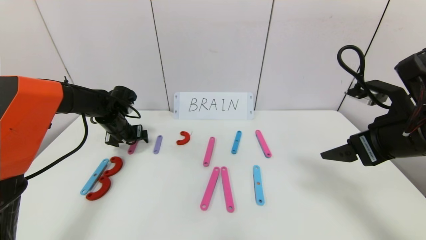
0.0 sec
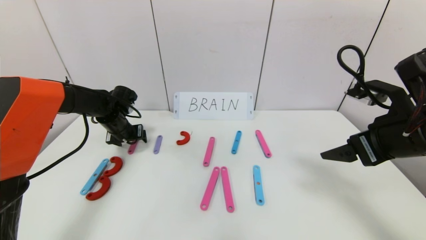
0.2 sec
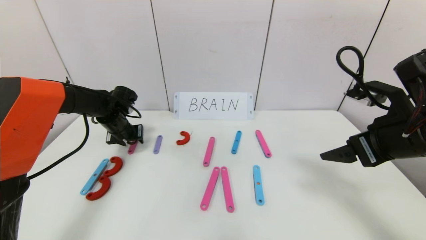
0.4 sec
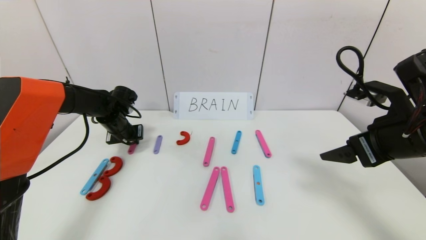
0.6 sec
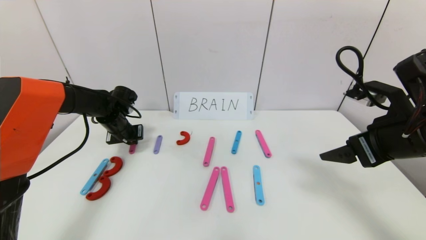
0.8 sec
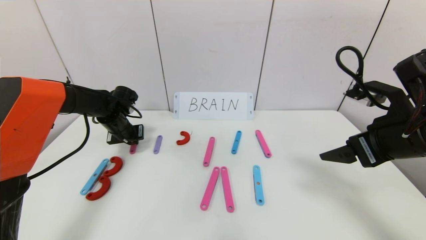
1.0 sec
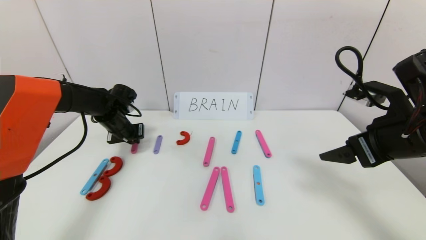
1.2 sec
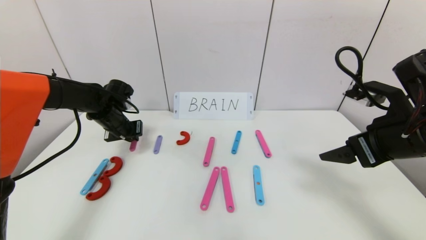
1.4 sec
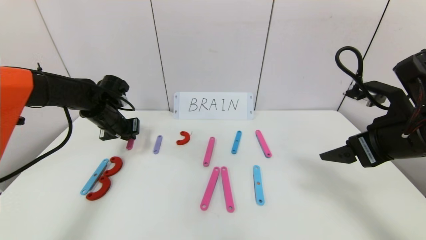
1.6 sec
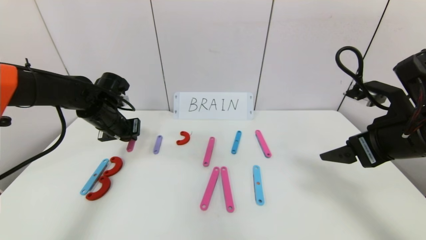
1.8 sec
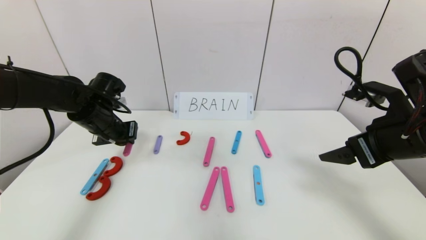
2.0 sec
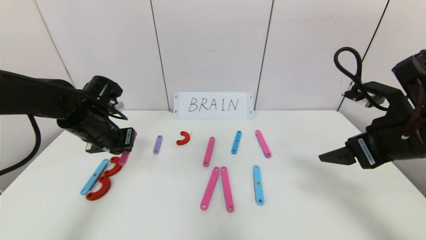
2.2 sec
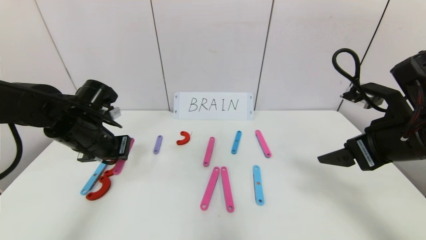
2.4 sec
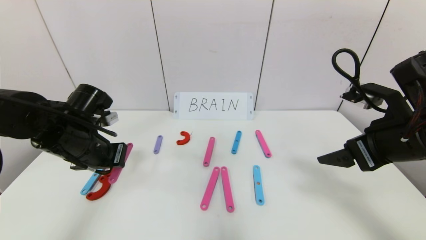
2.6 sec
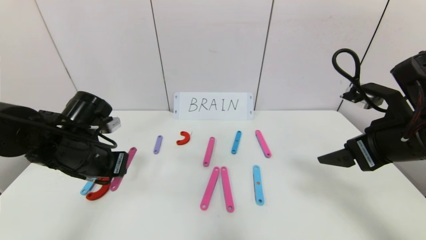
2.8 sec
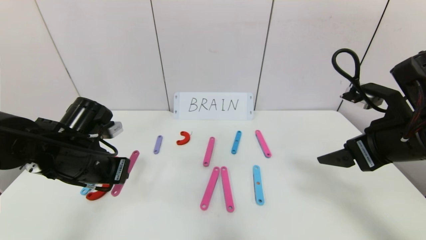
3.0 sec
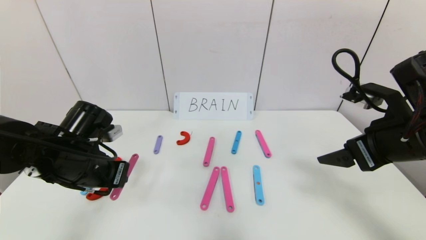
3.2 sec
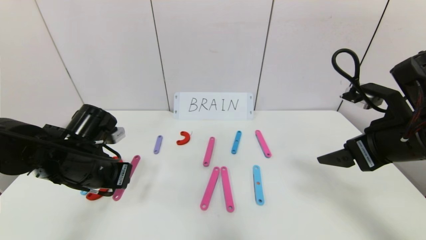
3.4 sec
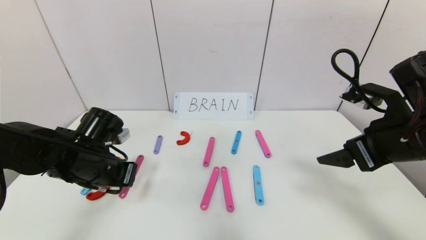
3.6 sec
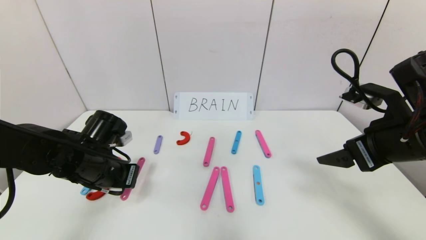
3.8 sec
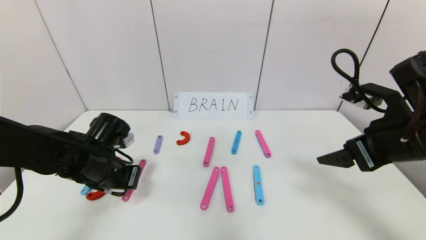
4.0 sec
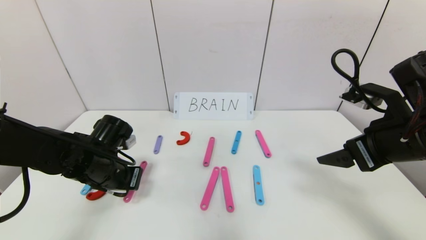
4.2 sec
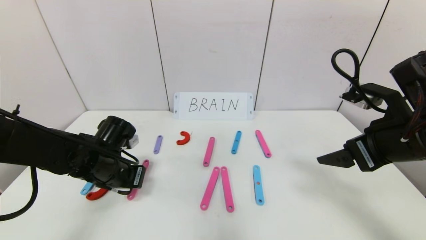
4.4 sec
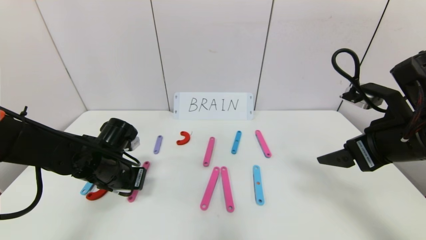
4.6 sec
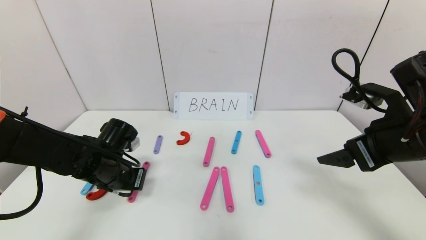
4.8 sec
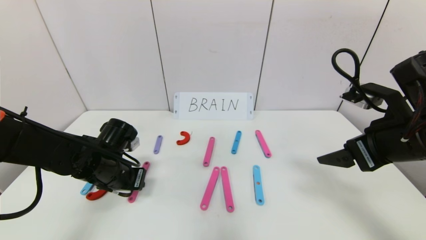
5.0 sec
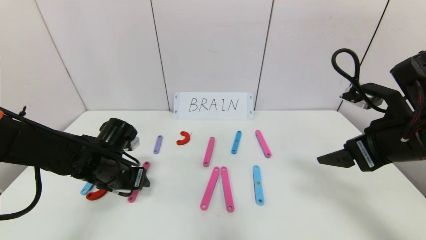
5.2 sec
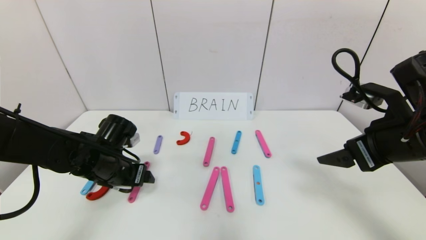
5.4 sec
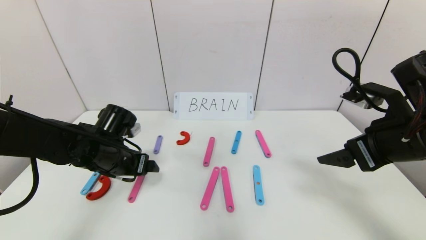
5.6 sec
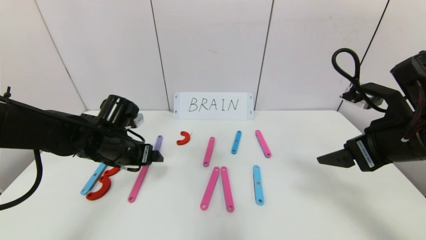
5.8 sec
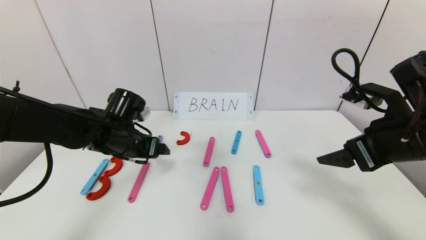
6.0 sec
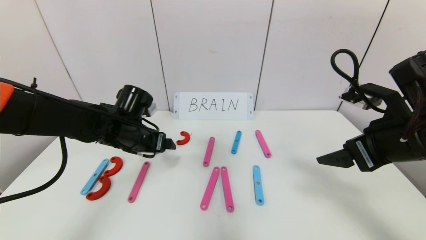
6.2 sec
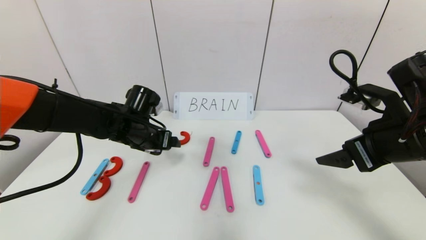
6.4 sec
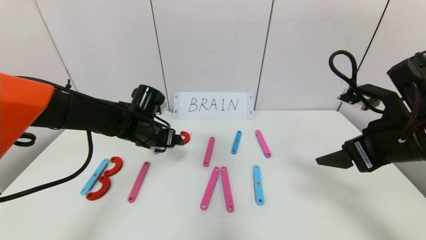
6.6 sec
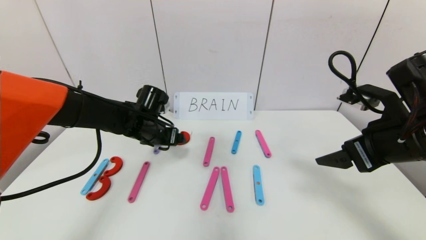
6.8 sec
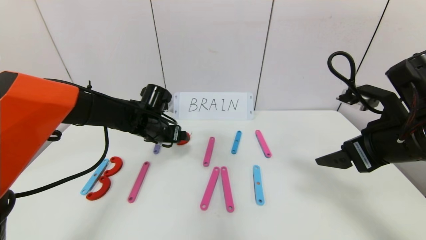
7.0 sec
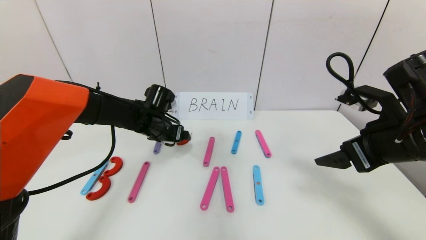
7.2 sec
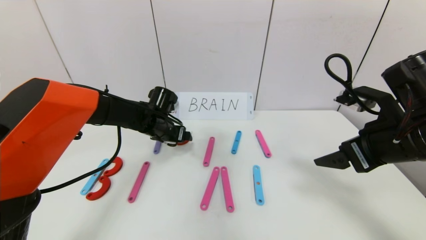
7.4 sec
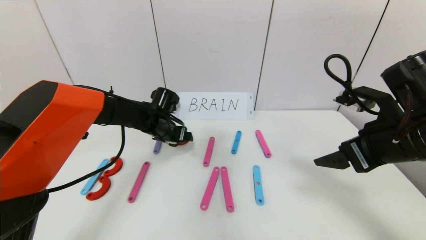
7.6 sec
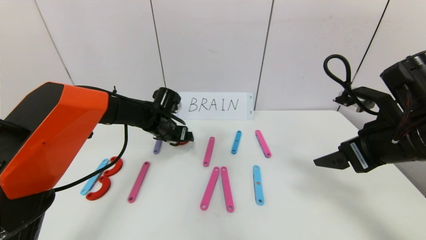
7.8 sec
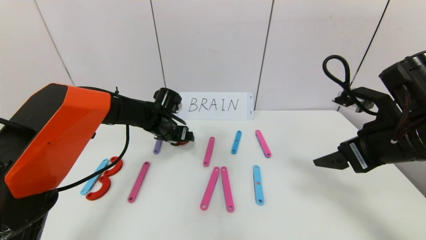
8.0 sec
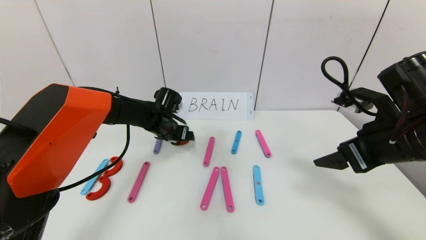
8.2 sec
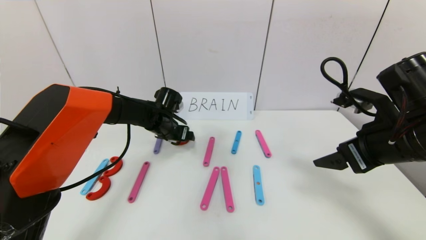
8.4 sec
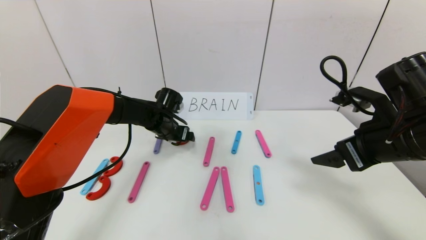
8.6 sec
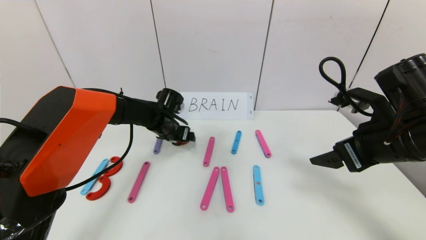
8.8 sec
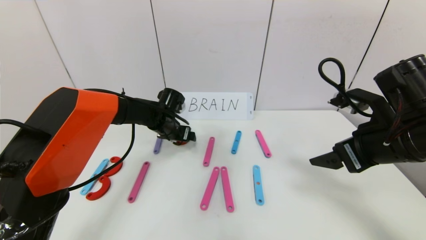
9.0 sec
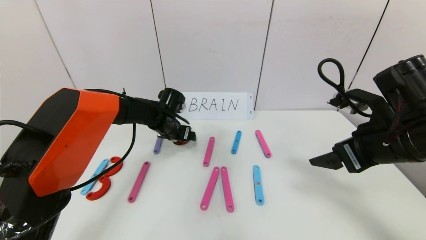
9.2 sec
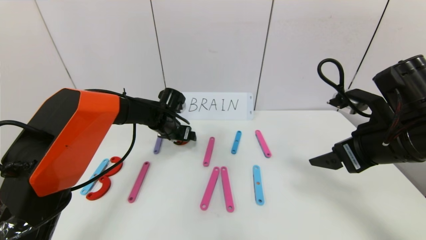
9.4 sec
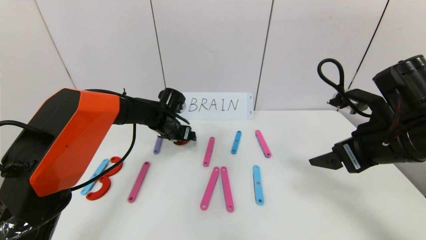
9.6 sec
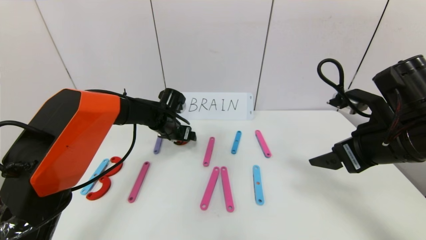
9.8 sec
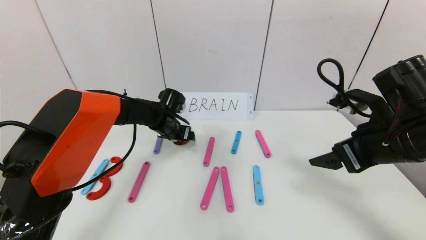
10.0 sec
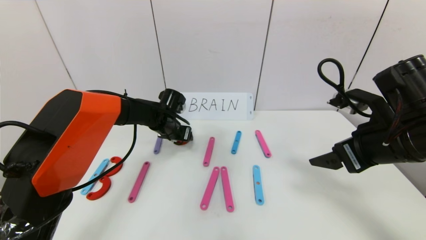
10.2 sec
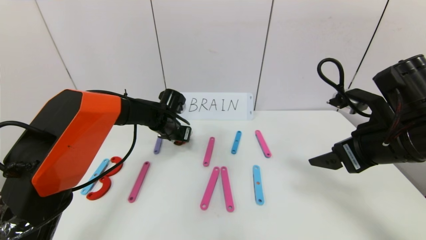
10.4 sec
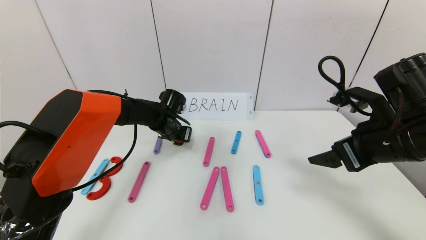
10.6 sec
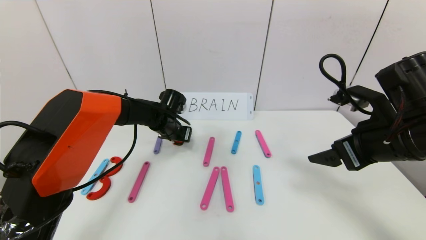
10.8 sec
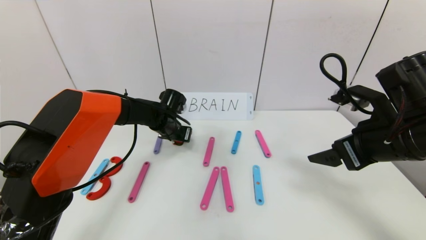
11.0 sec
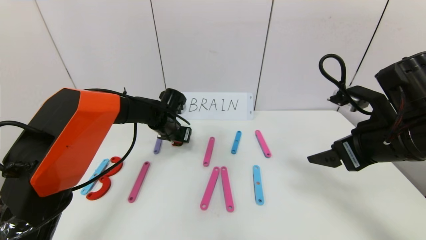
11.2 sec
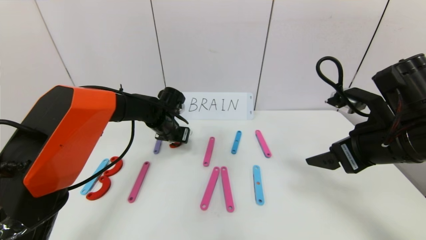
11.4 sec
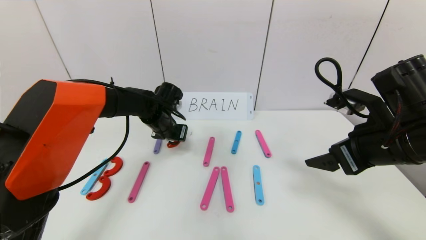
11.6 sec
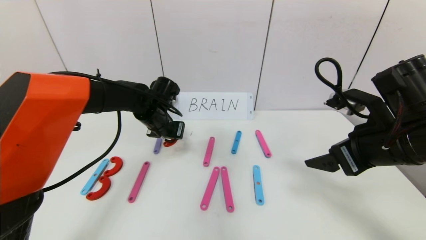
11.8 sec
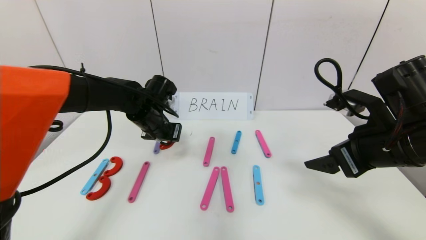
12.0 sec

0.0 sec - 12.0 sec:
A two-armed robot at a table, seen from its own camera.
Task of the whole recording: rearrange the word baai as brain.
0.0 sec - 1.6 sec: The left gripper ends up about 5 cm from where it was, and closes its fingers.
1.6 sec - 3.0 sec: The left gripper goes about 15 cm backward.
3.0 sec - 4.4 sec: The left gripper moves downward, some 5 cm.
4.4 sec - 6.0 sec: The left gripper changes place by approximately 5 cm, and opens its fingers.
6.0 sec - 7.6 sec: The left gripper shifts some 10 cm forward and to the right.
7.6 sec - 9.0 sec: There are only small adjustments of the grippers.
9.0 sec - 10.4 sec: The left gripper closes up.
10.4 sec - 12.0 sec: The left gripper shifts approximately 10 cm upward and backward.

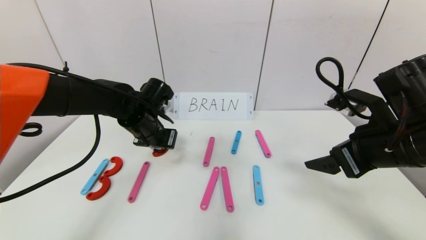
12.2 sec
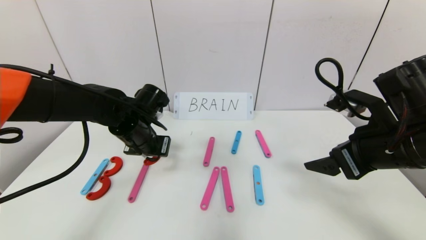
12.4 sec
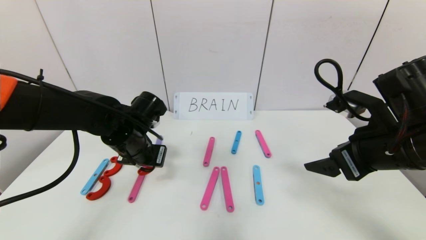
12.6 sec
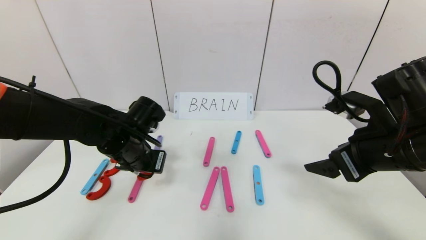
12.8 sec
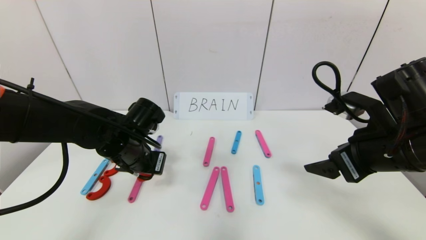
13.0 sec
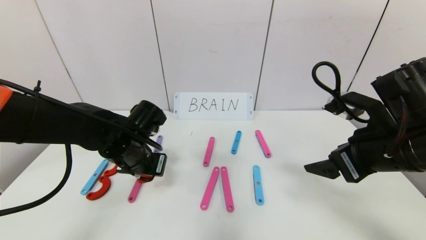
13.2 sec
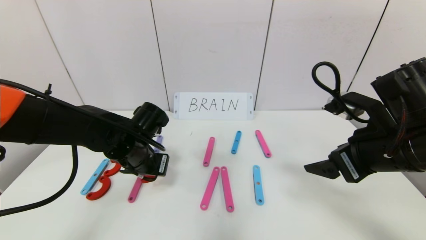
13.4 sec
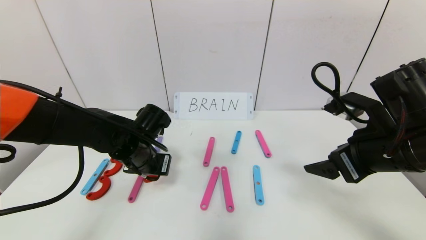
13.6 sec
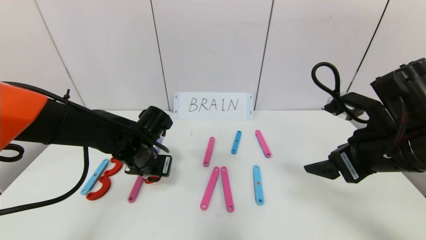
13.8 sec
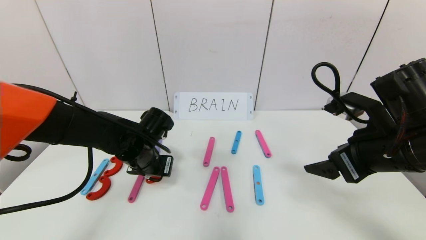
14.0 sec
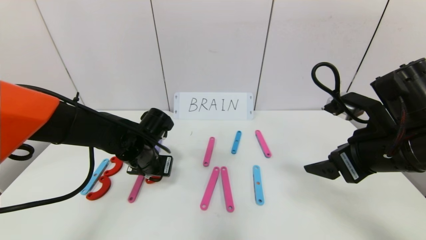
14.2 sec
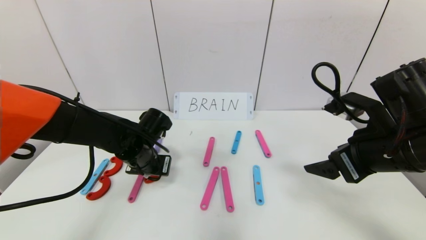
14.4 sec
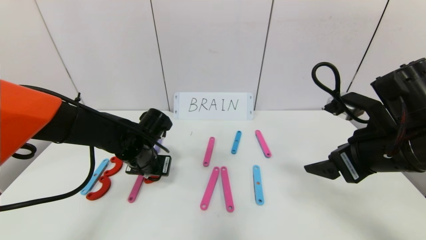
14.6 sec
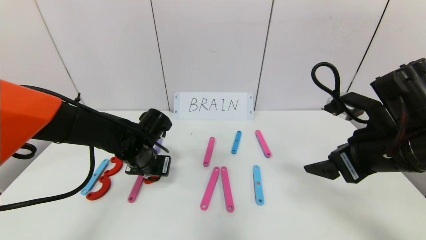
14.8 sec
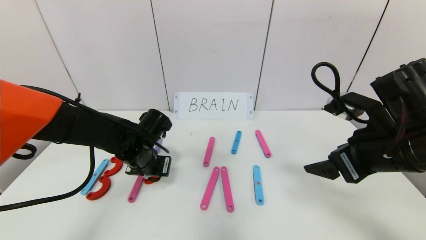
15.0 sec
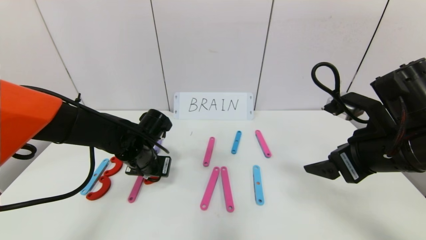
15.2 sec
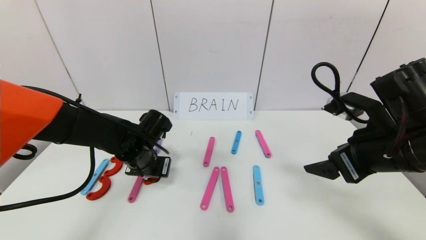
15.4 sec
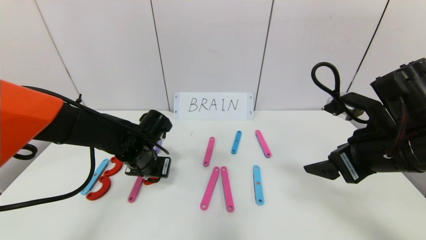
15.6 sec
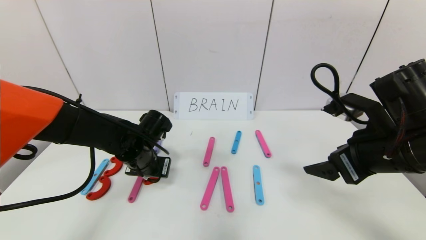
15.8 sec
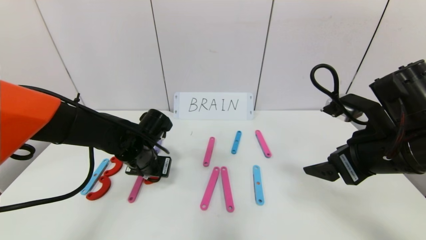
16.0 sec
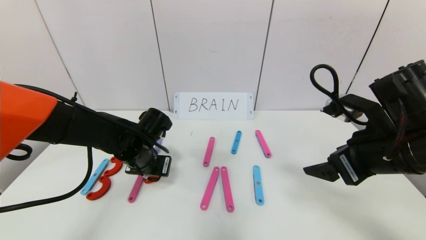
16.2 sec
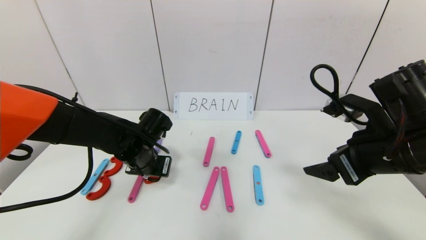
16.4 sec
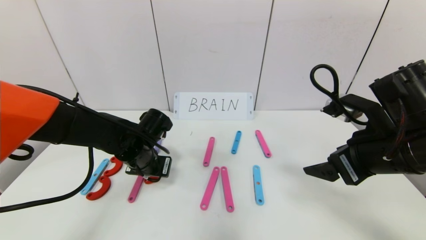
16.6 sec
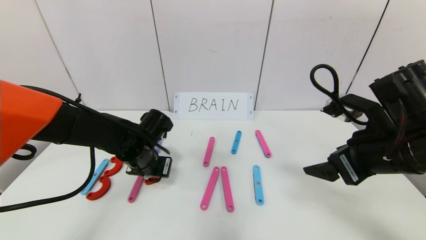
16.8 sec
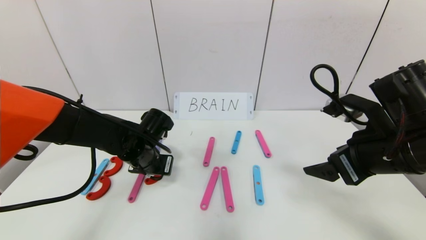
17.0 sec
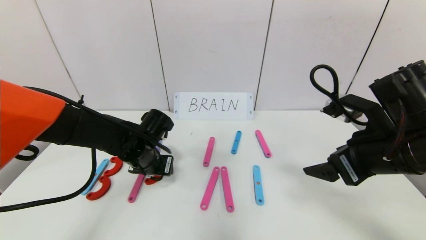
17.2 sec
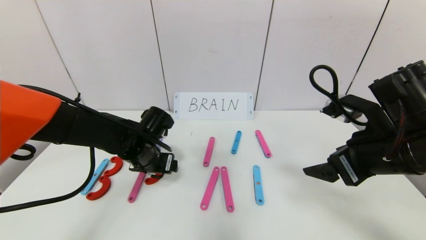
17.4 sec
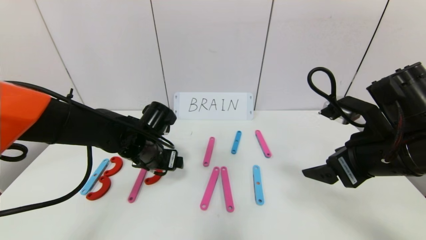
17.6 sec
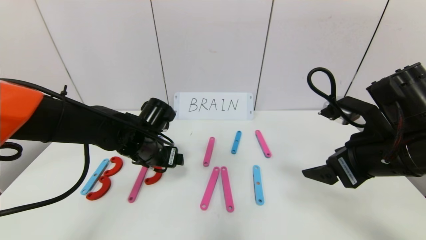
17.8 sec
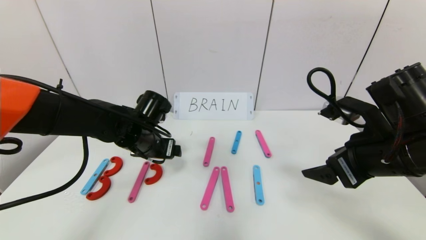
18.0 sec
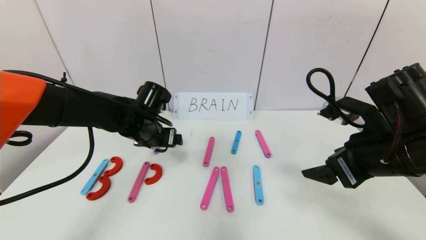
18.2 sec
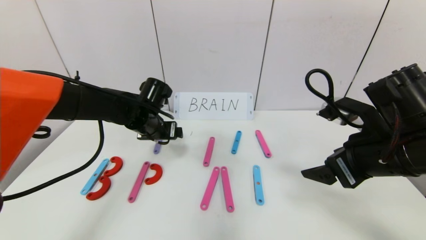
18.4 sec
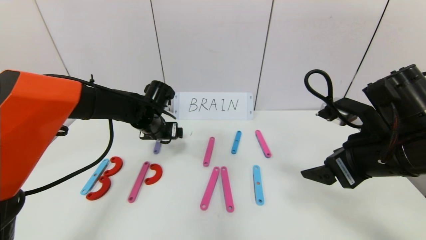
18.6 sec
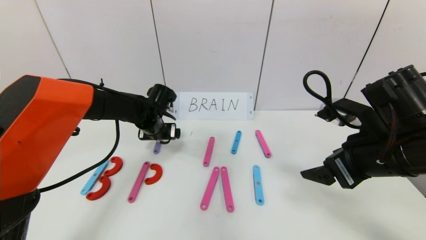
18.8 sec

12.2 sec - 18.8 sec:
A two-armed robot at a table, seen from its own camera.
Task of the whole recording: rearrange the word baai as brain.
12.2 sec - 13.8 sec: The left gripper shifts by approximately 5 cm.
13.8 sec - 15.4 sec: The grippers stay close to where they were, moving slightly.
15.4 sec - 17.2 sec: The left gripper opens.
17.2 sec - 18.8 sec: The left gripper travels forward by about 10 cm.
